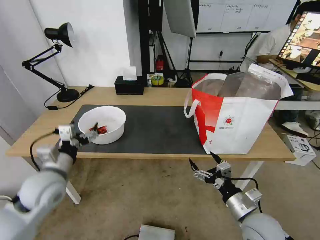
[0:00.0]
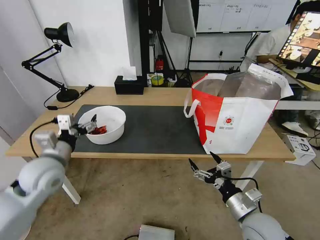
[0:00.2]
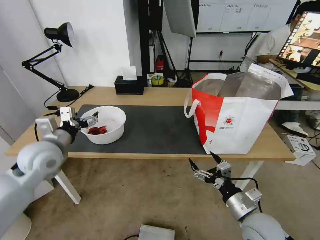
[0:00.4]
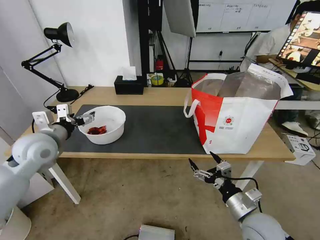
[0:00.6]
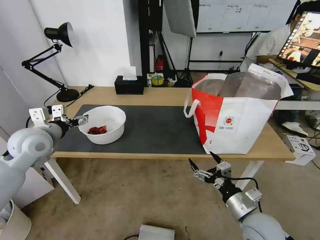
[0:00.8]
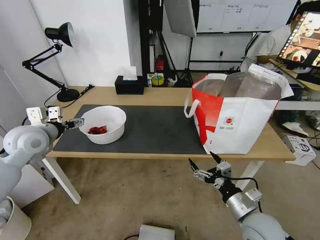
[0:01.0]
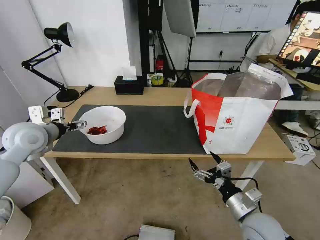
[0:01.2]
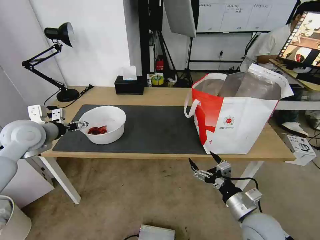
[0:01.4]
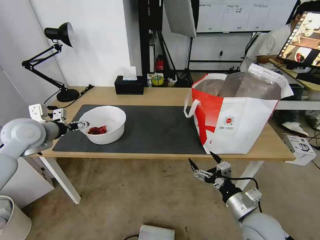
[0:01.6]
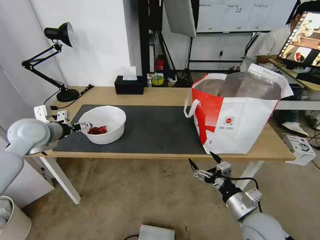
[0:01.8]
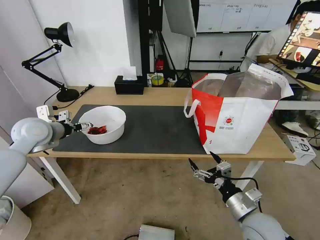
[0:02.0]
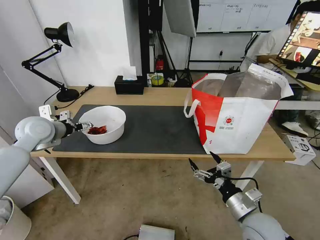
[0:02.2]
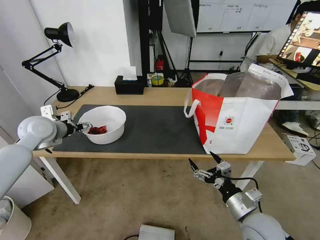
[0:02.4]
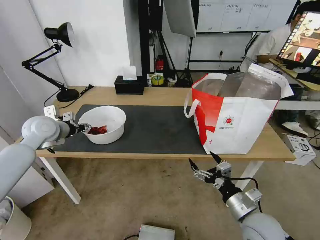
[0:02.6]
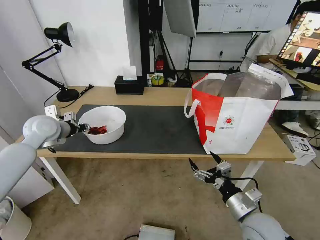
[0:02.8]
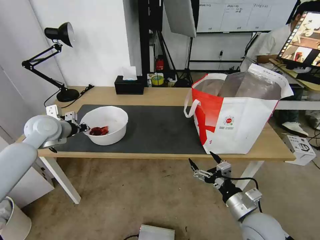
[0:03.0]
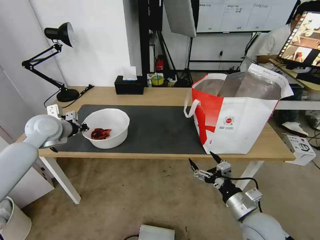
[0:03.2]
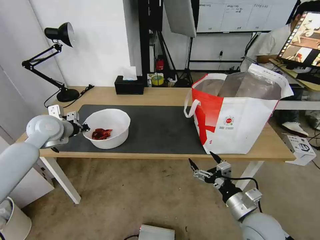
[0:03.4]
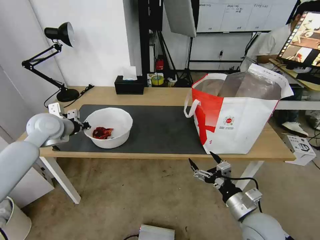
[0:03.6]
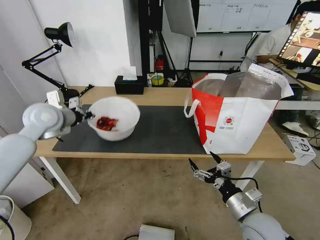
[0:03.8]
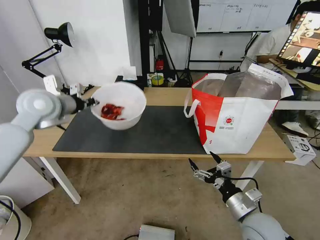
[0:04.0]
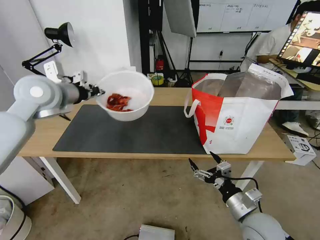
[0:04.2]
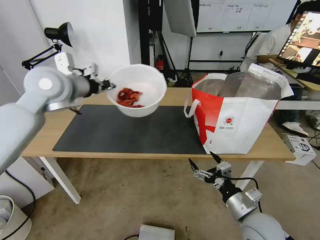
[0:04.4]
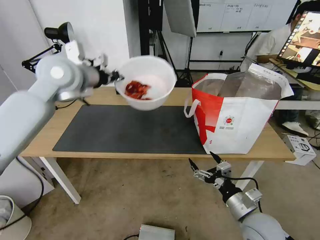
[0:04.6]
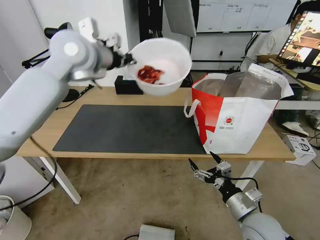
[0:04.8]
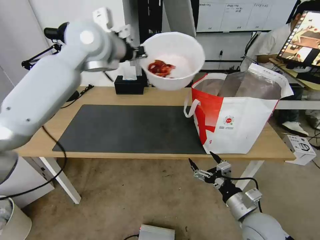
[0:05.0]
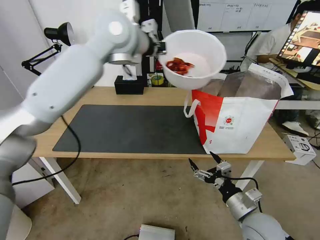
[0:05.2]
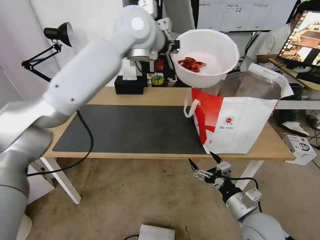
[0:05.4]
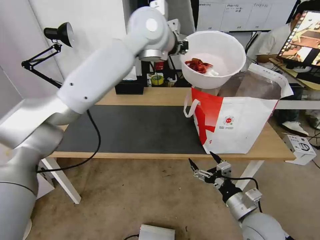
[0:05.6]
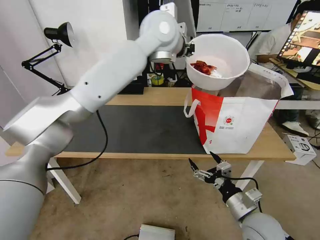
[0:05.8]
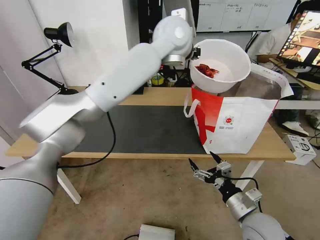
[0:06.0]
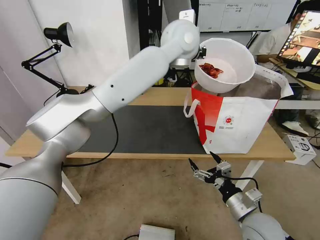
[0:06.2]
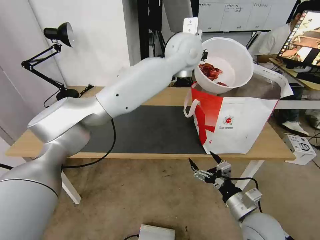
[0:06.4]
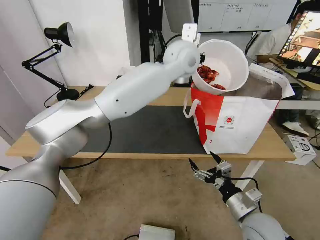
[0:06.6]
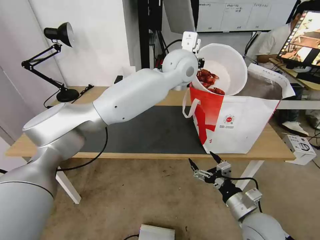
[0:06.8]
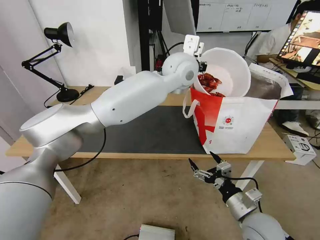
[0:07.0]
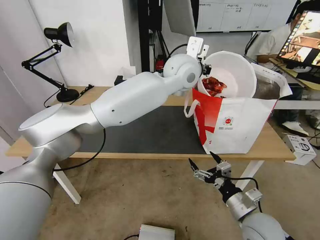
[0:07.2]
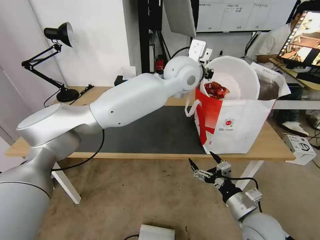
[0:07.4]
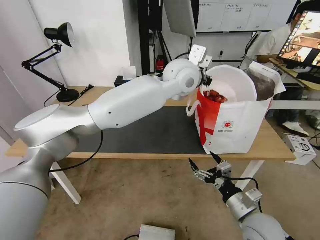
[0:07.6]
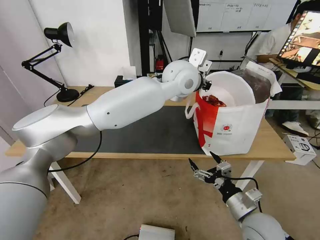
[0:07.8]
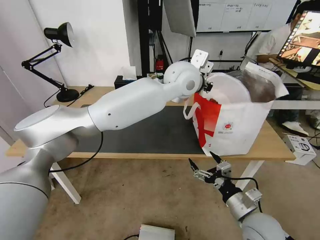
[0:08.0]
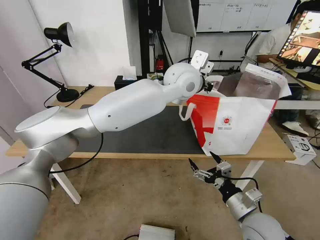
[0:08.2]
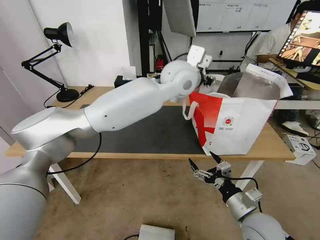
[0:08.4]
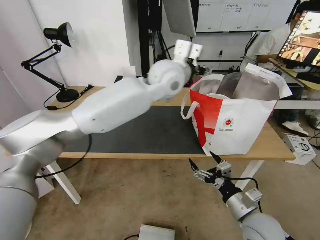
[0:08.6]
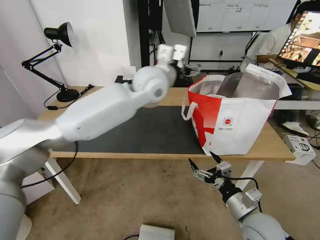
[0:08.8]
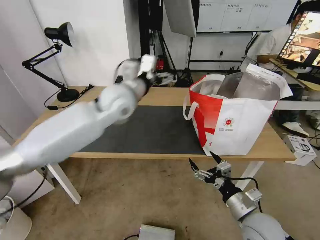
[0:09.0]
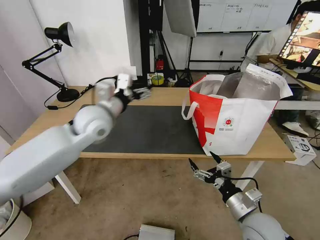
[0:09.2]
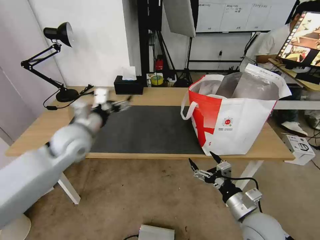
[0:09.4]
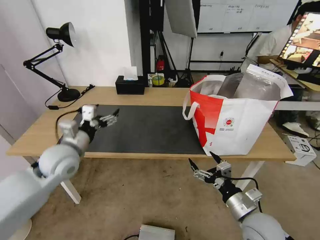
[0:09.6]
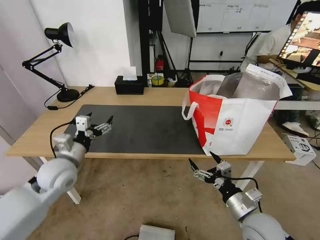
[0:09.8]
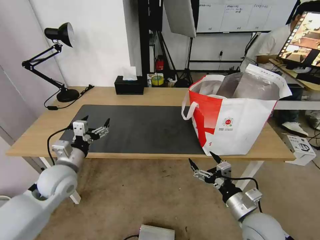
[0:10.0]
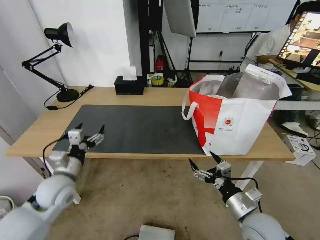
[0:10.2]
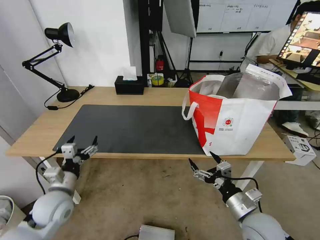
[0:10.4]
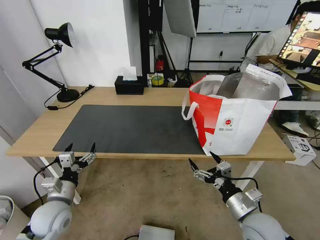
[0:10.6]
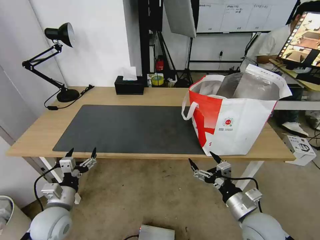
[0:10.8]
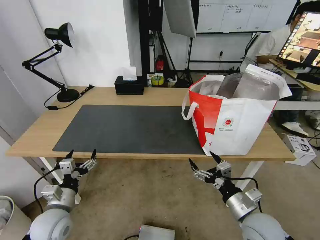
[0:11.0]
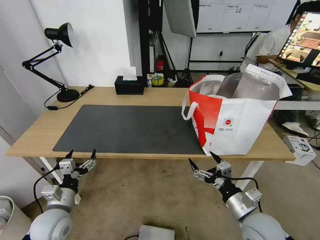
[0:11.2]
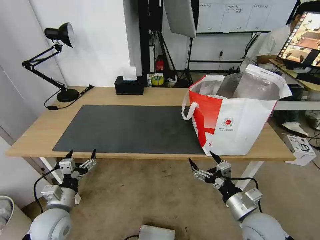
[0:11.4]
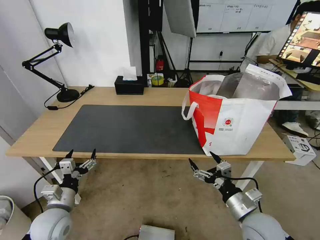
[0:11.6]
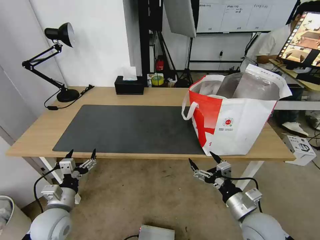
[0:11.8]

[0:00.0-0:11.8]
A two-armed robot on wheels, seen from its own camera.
Task of the whole recording: Pick up the trash from the table and place it into the takeout bag.
0:00.0 to 0:01.4: The left gripper is displaced forward, upward and to the left by roughly 15 cm.
0:01.4 to 0:03.0: The left gripper moves forward, about 5 cm, and closes up.
0:03.0 to 0:04.4: The left gripper goes some 20 cm upward and to the right.
0:04.4 to 0:06.0: The left gripper travels to the right by roughly 30 cm.
0:06.0 to 0:07.4: The left gripper goes some 10 cm downward.
0:07.4 to 0:08.8: The left gripper heads to the left, covering approximately 10 cm, and opens up.
0:08.8 to 0:10.4: The left gripper shifts some 40 cm downward, to the left and backward.
0:10.4 to 0:11.8: The left gripper moves approximately 5 cm.

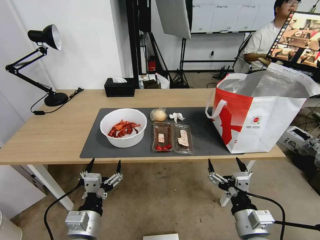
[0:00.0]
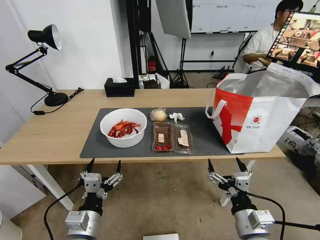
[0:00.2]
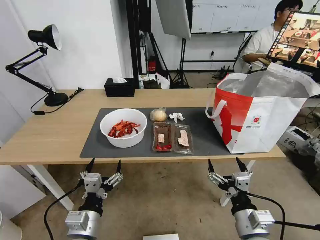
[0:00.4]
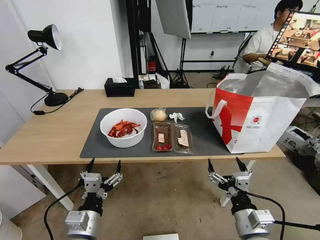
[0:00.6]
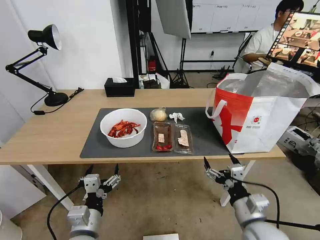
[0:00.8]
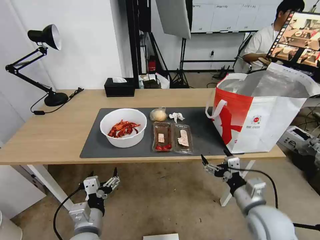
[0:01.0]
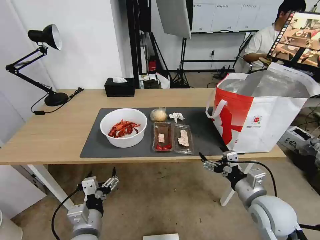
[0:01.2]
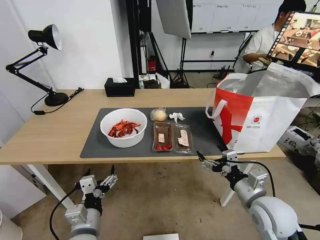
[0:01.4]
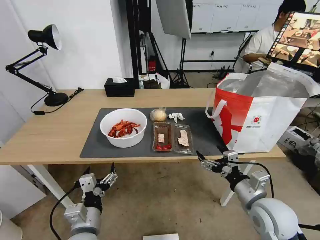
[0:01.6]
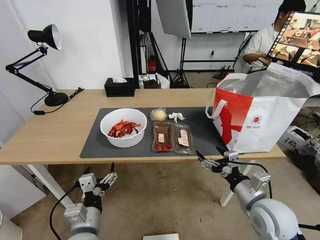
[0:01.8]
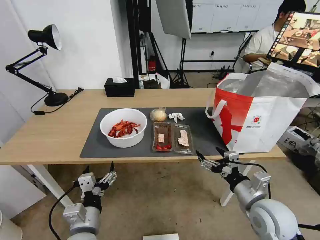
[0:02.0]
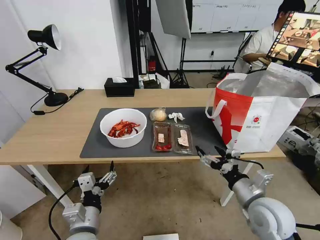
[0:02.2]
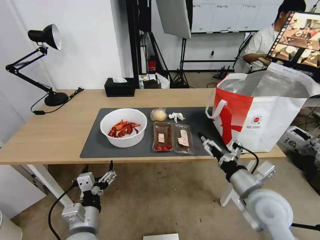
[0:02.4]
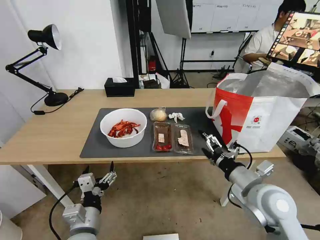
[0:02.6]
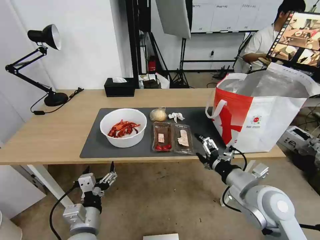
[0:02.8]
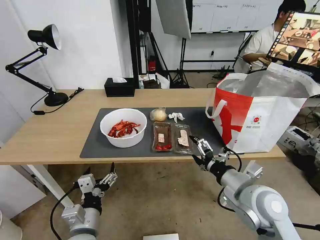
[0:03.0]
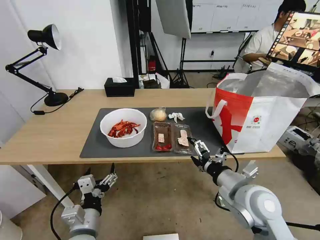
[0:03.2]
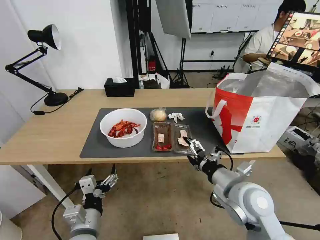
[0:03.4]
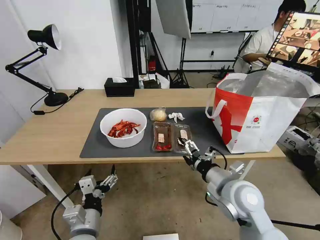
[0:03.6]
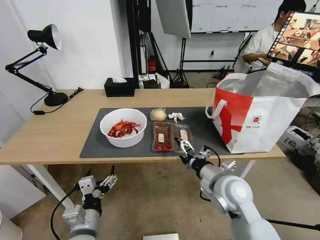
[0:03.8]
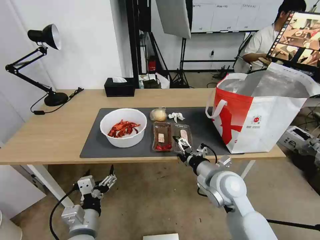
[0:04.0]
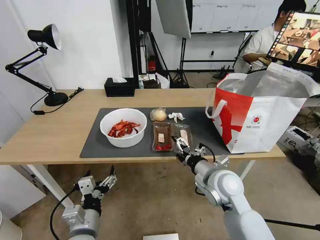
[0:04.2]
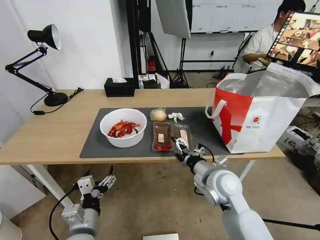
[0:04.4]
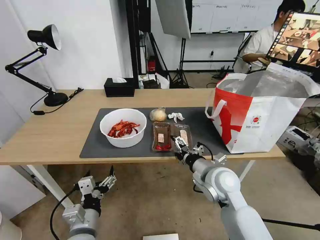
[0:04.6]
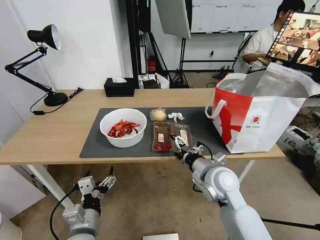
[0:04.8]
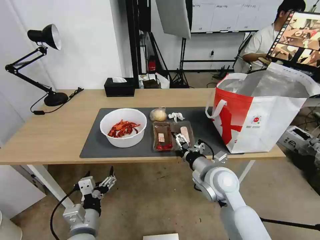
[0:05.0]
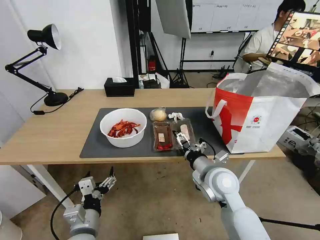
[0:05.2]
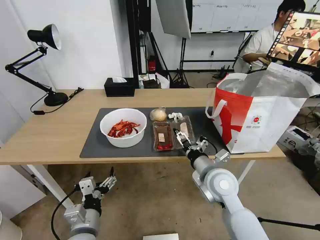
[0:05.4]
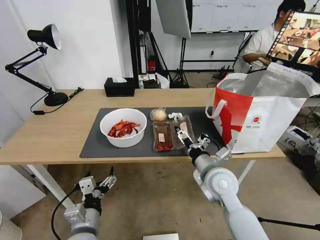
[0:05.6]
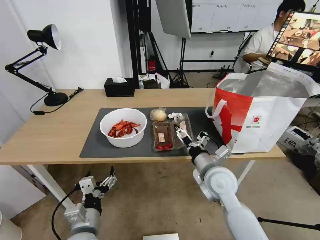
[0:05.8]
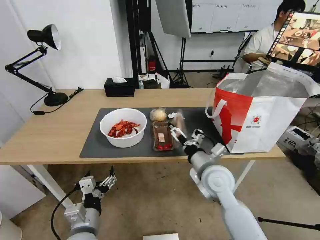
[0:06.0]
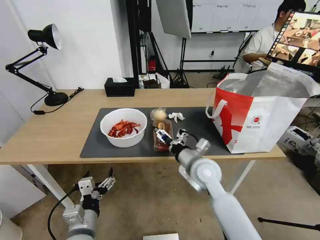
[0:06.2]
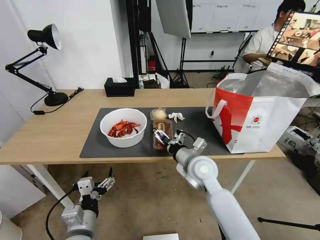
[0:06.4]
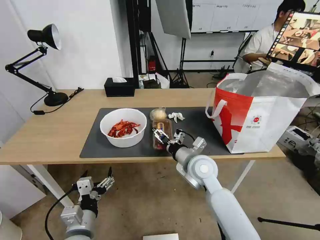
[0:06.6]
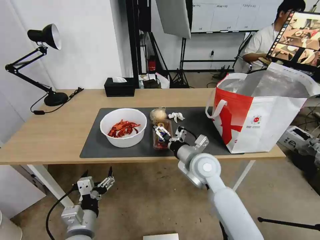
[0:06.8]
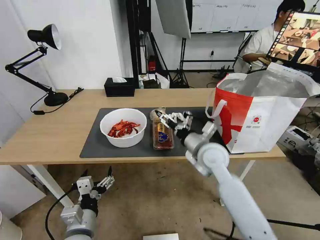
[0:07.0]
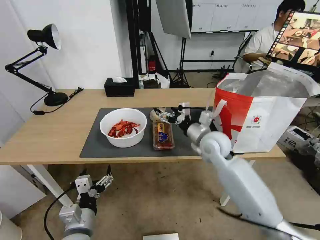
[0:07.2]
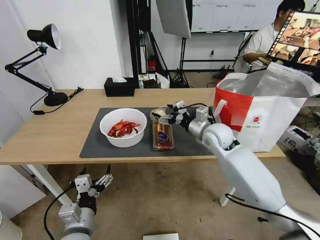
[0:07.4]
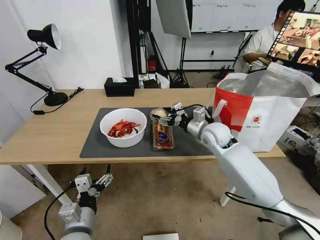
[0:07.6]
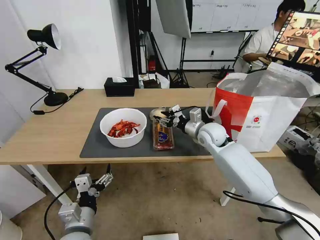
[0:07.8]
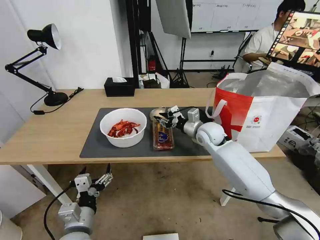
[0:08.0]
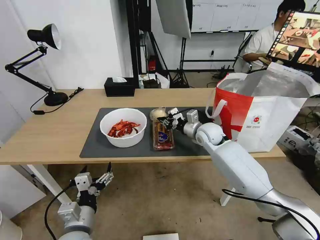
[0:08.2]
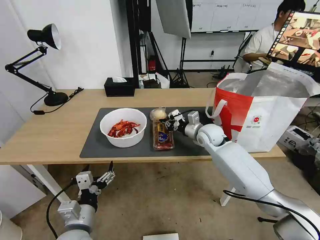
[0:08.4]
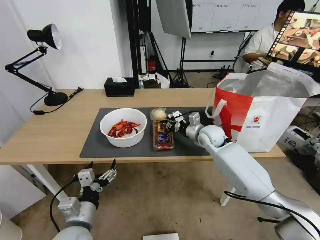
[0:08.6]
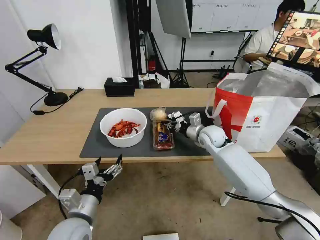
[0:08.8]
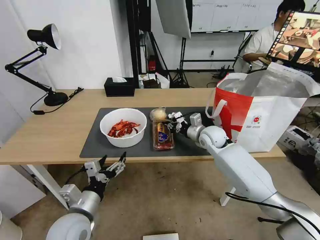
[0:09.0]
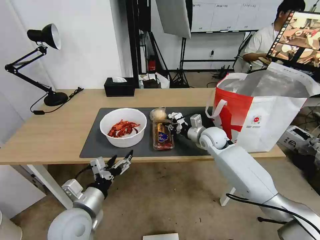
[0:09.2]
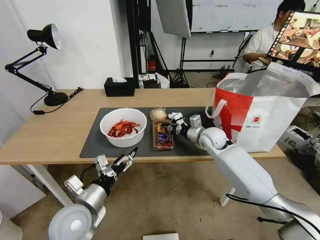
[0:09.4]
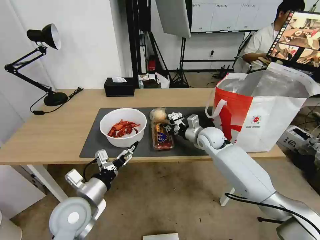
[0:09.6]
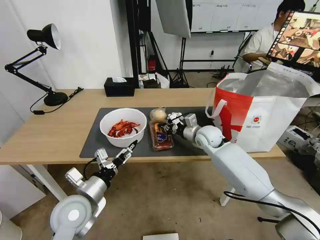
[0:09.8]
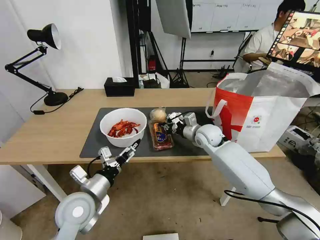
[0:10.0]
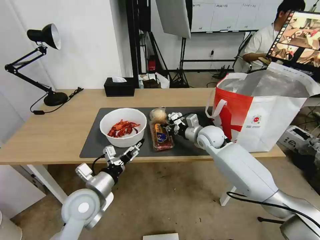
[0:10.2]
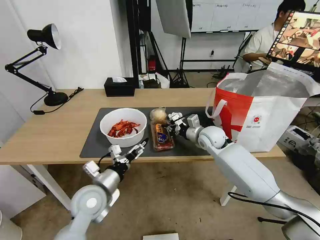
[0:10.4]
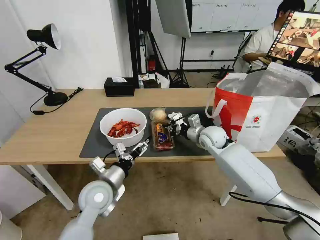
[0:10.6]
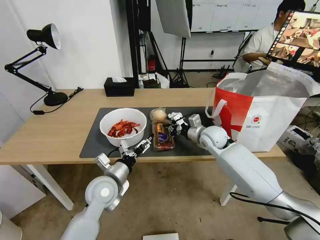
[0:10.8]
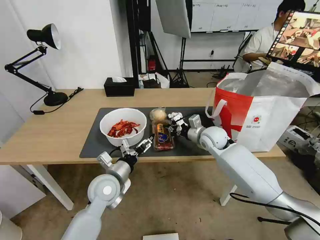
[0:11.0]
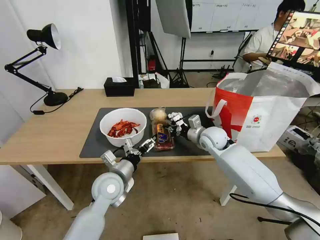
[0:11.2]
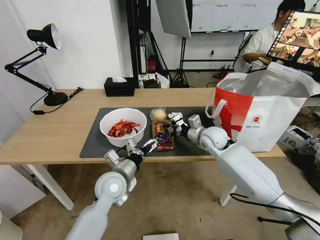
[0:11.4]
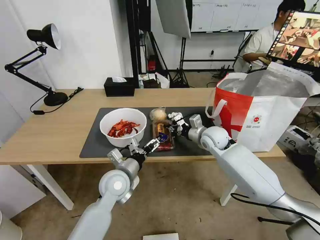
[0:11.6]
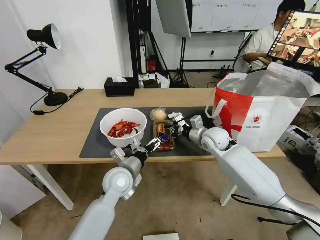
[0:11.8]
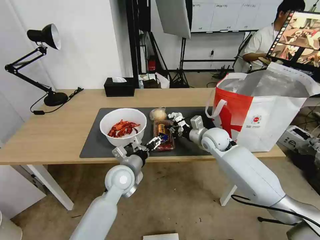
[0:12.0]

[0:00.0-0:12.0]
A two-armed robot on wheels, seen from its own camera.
Task of the whole recording: Pick up the trash from the table and place it into the takeout bag.
0:01.6 to 0:03.0: The right gripper shifts by approximately 5 cm.
0:03.0 to 0:04.4: The right gripper goes roughly 10 cm forward and to the left.
0:06.0 to 0:07.6: The right gripper shifts about 15 cm forward.
0:07.6 to 0:09.0: The right gripper ends up approximately 5 cm from where it was, and closes.
0:09.0 to 0:10.4: The left gripper heads forward, covering roughly 10 cm.
0:10.4 to 0:12.0: The left gripper is displaced forward and to the right by about 10 cm.
